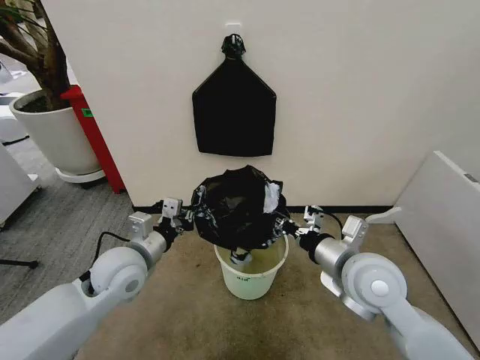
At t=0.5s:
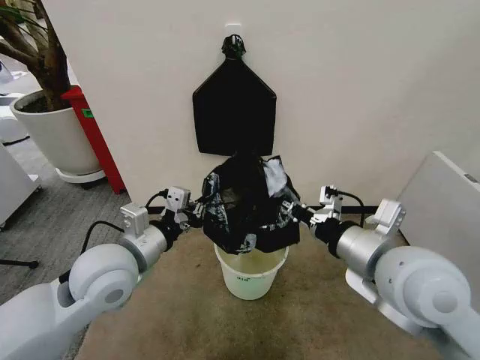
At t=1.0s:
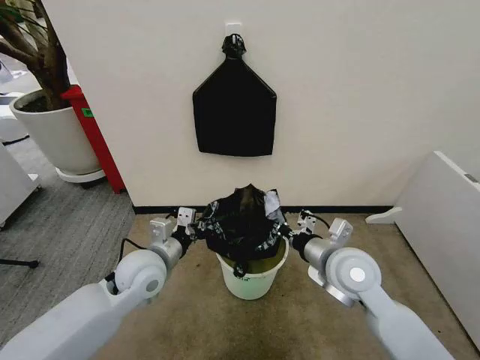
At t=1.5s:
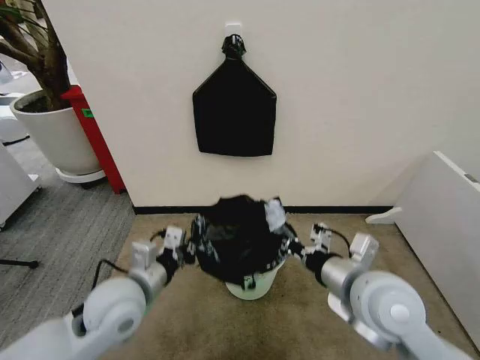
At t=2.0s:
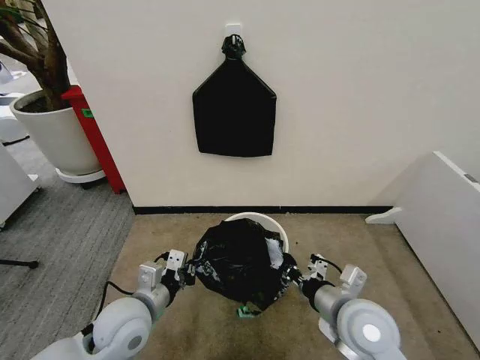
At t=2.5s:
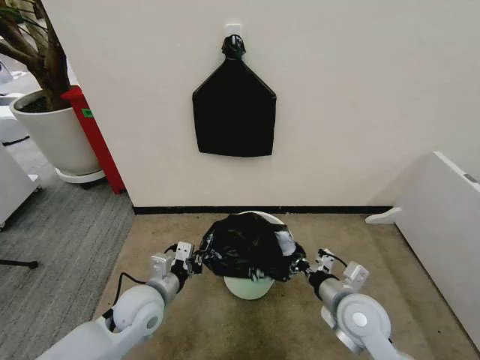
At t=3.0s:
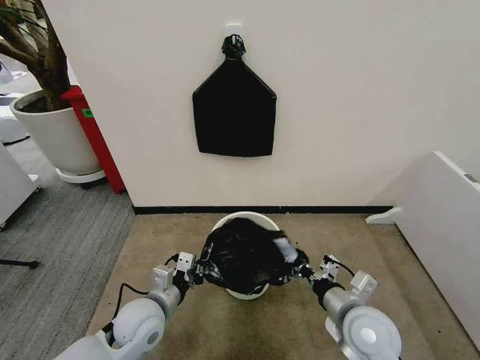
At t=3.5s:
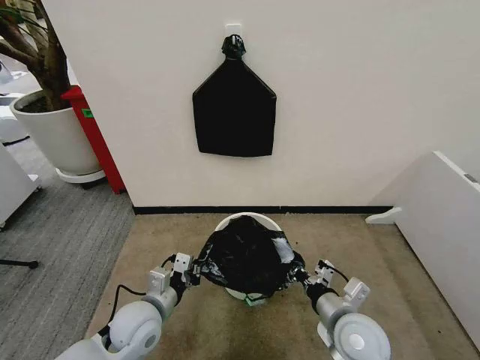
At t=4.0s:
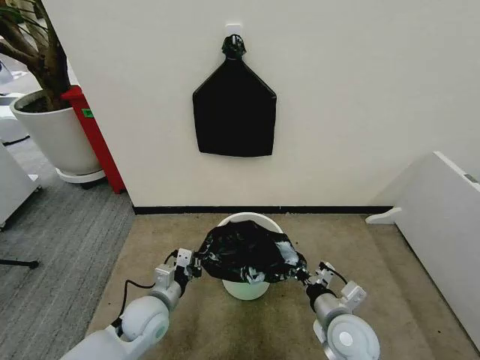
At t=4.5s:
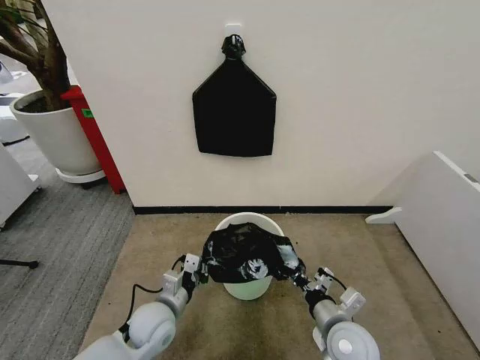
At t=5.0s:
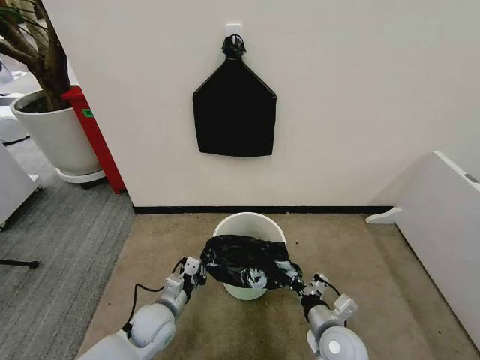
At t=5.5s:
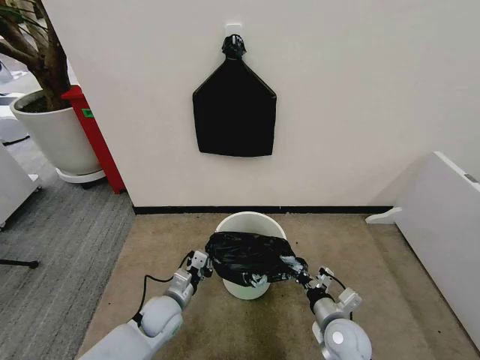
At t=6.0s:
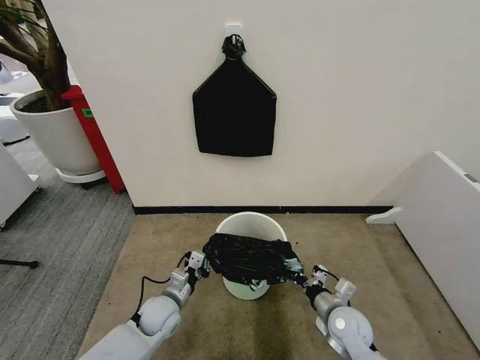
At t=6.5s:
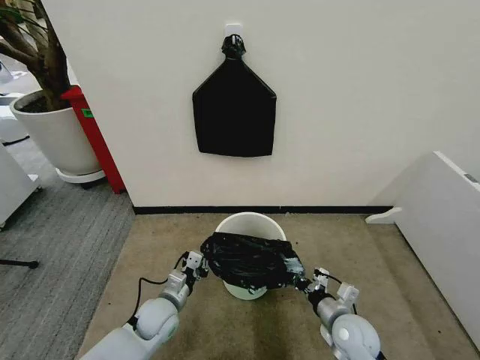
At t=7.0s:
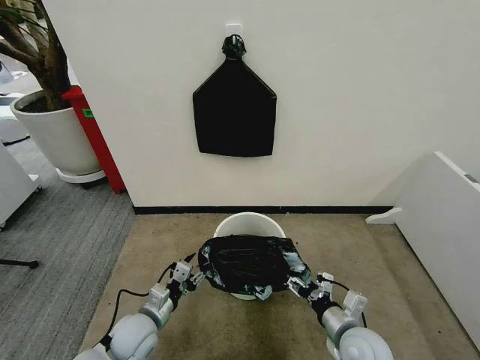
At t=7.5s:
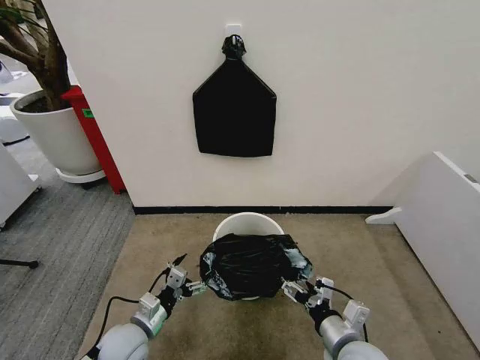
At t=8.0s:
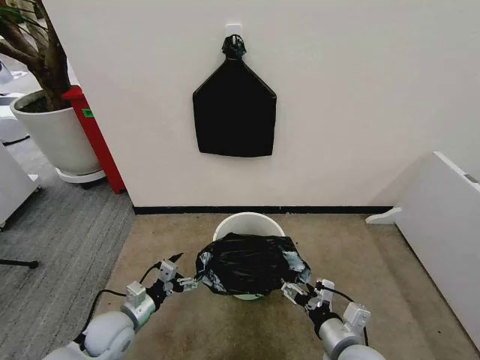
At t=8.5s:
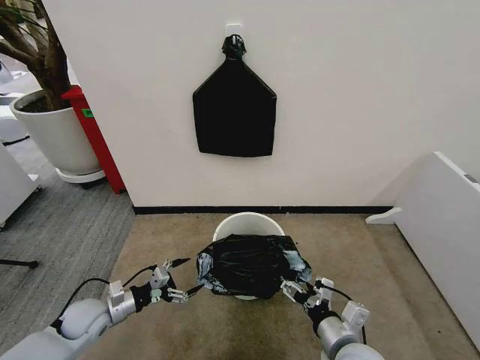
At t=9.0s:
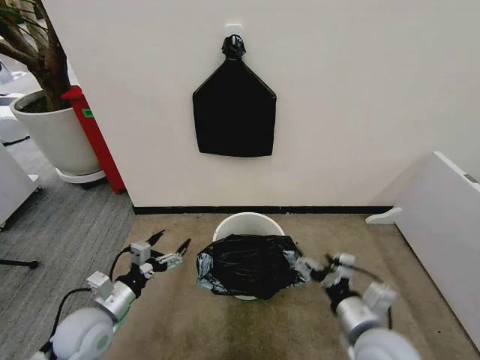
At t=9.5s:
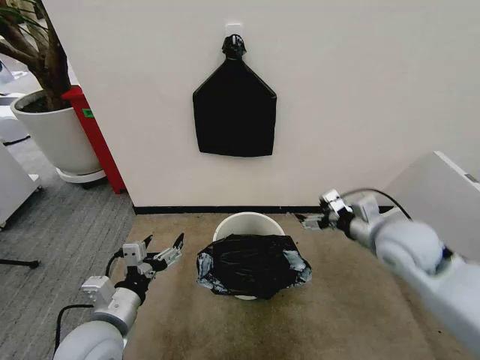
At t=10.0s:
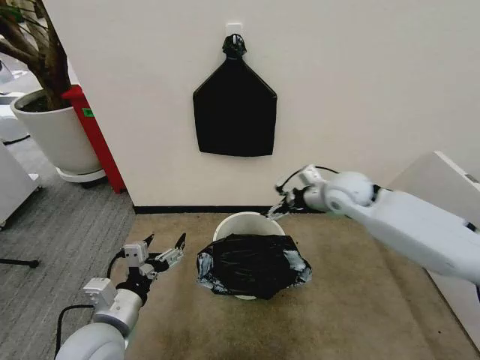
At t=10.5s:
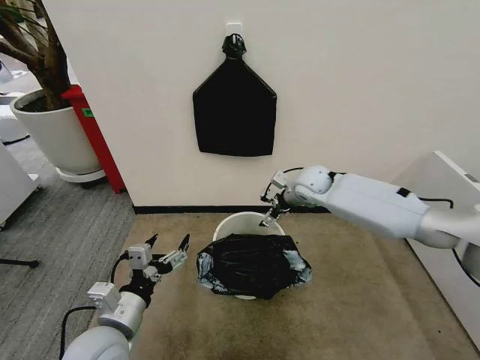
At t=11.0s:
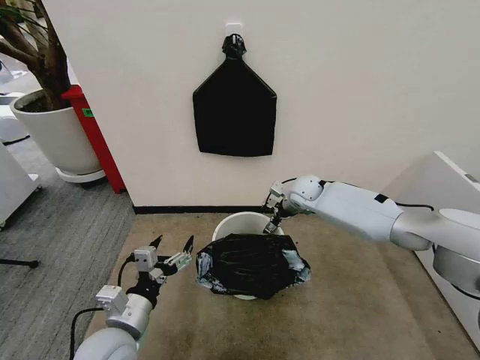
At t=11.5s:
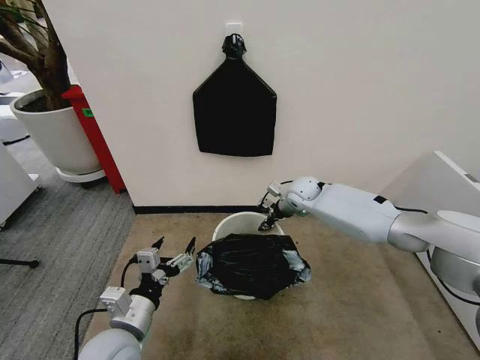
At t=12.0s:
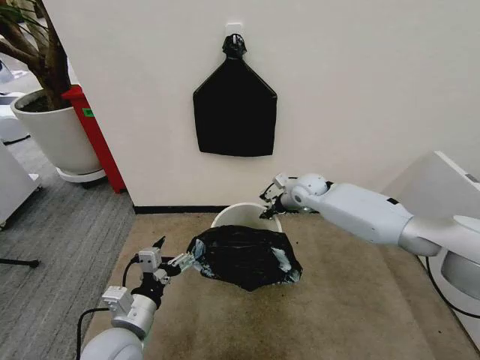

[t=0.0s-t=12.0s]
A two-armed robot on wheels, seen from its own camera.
Task of the whole recording: Place the garbage bag over the trash bin.
t=0.0s to t=2.0s: The right gripper goes up and down, some 15 cm each way, reversing 3 times, while the left gripper shifts approximately 10 cm backward and downward.
t=2.0s to t=4.0s: Both grippers travel together downward, approximately 10 cm.
t=4.0s to t=6.0s: The grippers both shift downward by some 5 cm.
t=6.0s to t=8.0s: The left gripper heads to the left, covering approximately 10 cm, and opens up. Meanwhile the right gripper moves backward and upward, about 15 cm, and opens its fingers.
t=8.0s to t=10.0s: The right gripper travels forward and upward by about 35 cm. The left gripper moves upward and backward, about 15 cm.
t=10.0s to t=12.0s: The right gripper travels forward and downward by approximately 10 cm, and closes.

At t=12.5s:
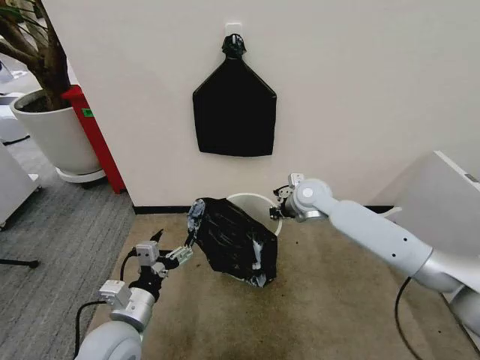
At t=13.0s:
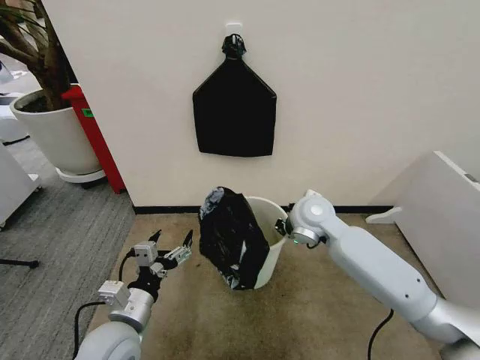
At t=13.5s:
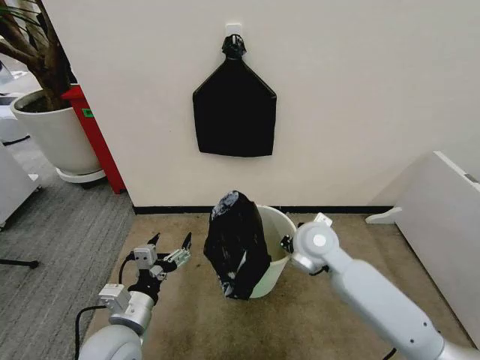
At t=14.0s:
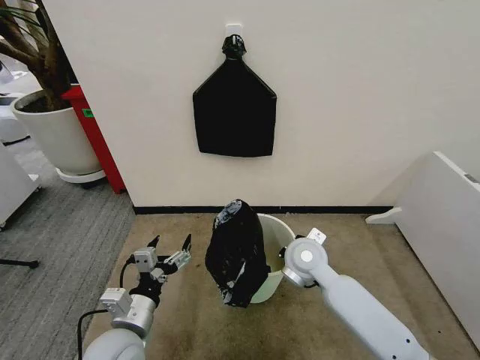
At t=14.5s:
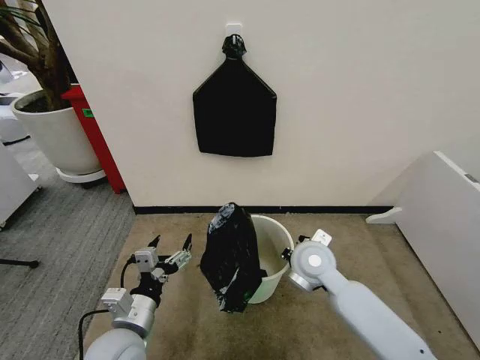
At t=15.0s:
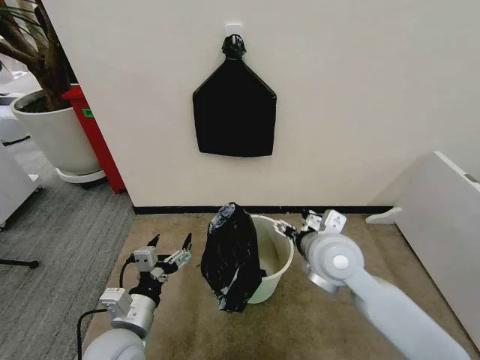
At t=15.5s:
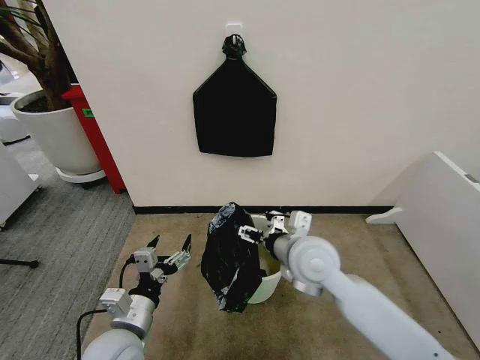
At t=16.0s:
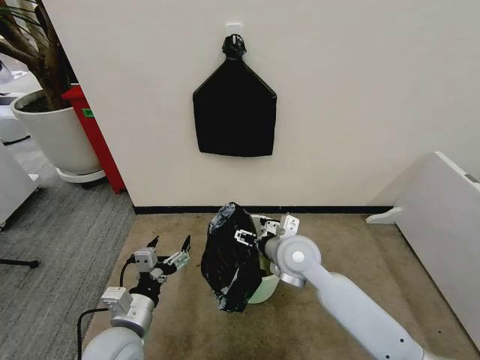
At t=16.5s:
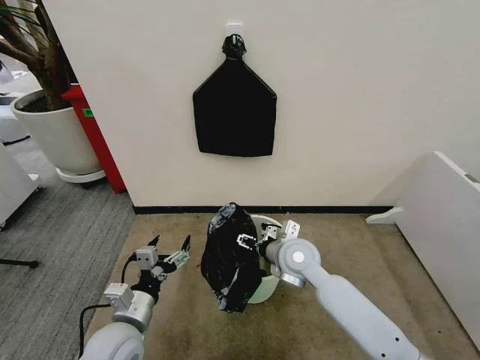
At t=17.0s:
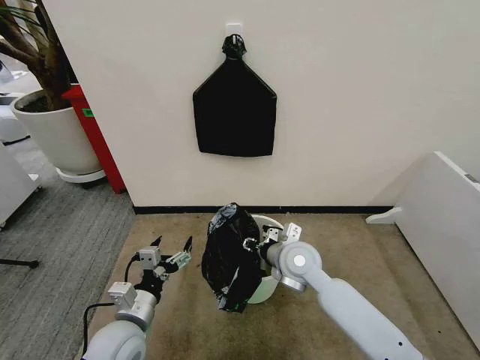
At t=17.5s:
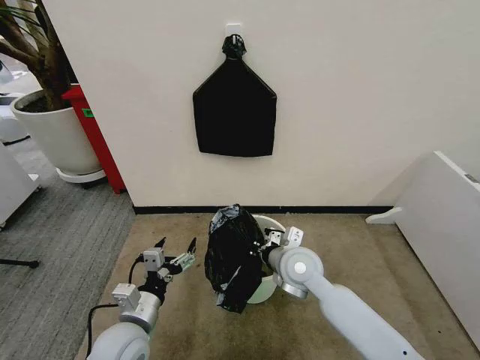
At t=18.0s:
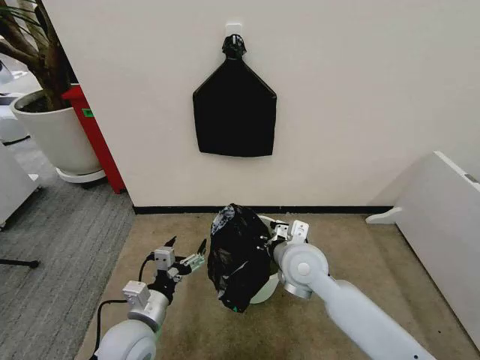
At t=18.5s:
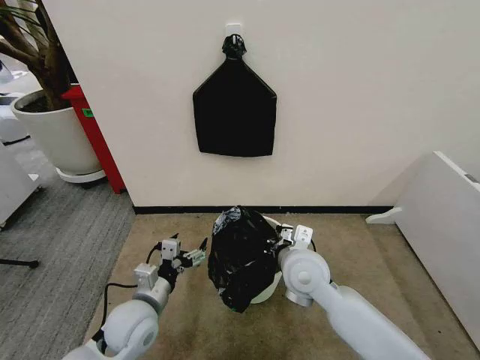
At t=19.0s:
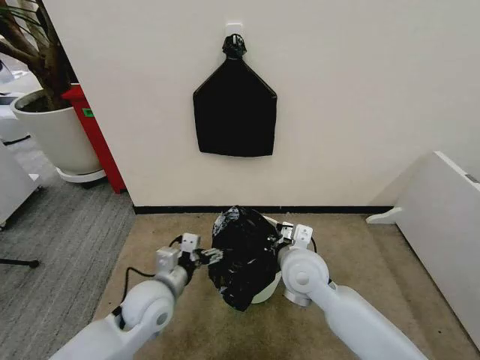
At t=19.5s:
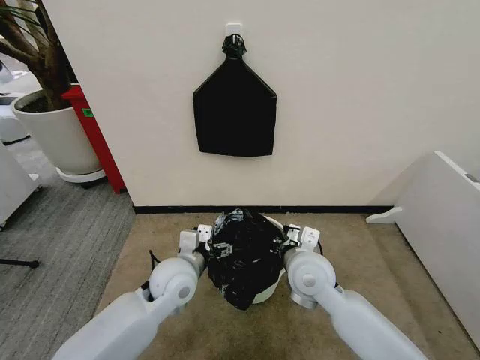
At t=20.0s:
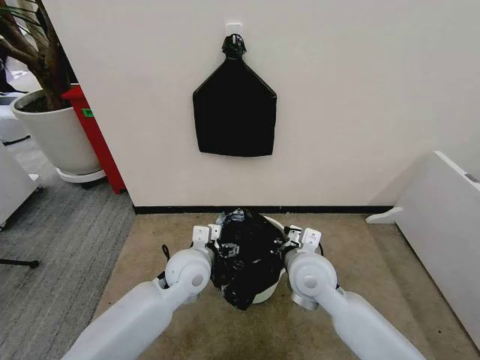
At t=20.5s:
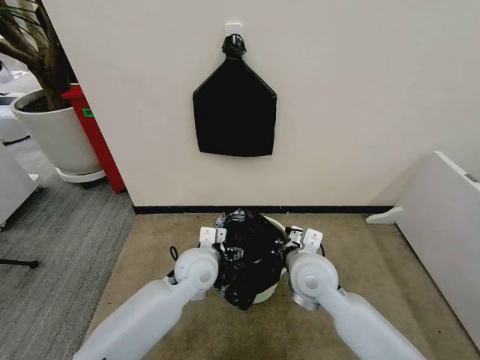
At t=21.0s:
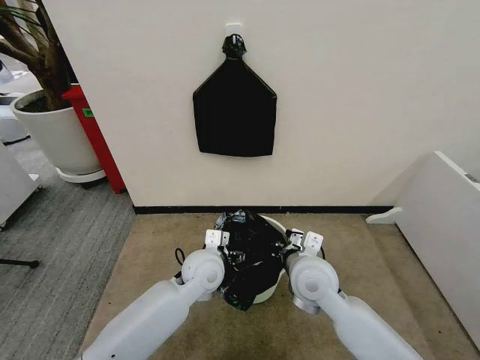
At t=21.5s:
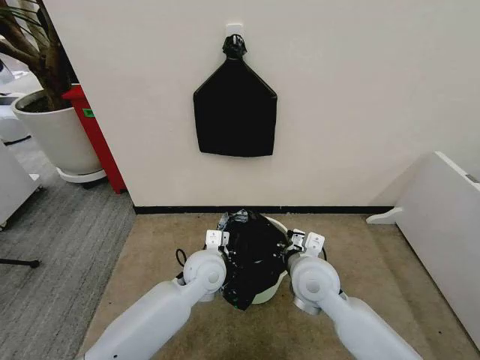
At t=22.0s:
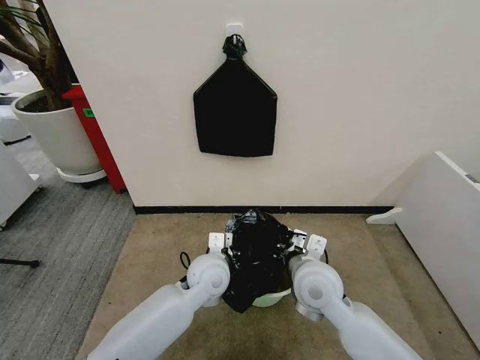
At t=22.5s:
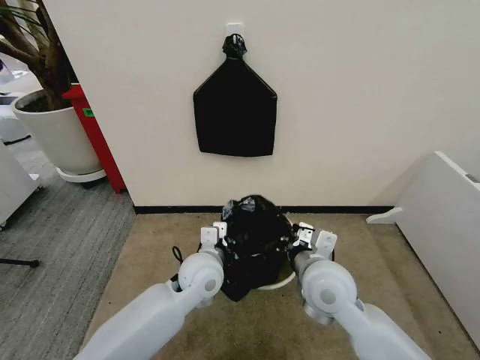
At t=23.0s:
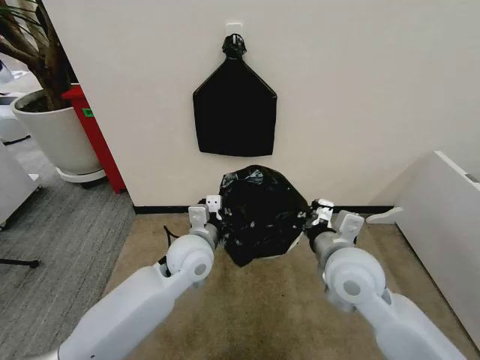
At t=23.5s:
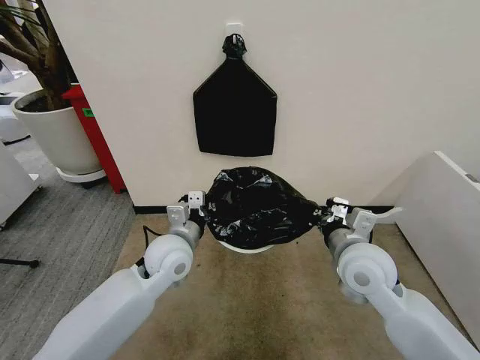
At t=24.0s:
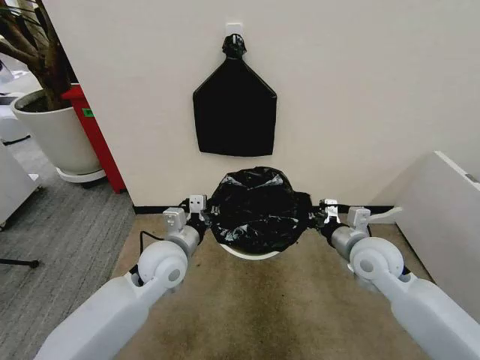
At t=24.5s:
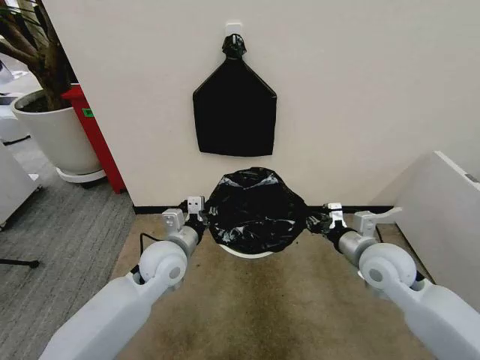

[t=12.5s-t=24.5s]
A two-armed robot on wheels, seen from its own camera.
Task of the whole recording: Place the garbage bag over the trash bin.
t=12.5s to t=14.5s: The right gripper heads backward, covering about 15 cm, and opens.
t=14.5s to t=16.5s: The right gripper moves approximately 5 cm upward and comes back, and opens up.
t=16.5s to t=18.5s: The right gripper moves about 5 cm, and closes up.
t=18.5s to t=20.5s: The left gripper shifts about 15 cm to the right and forward.
t=20.5s to t=22.5s: The left gripper closes its fingers.
t=22.5s to t=24.5s: The right gripper goes roughly 15 cm to the right, while the left gripper heads to the left, covering some 10 cm.

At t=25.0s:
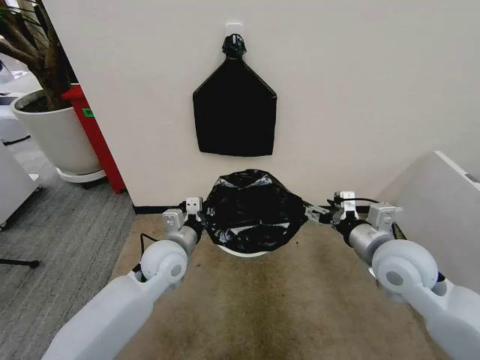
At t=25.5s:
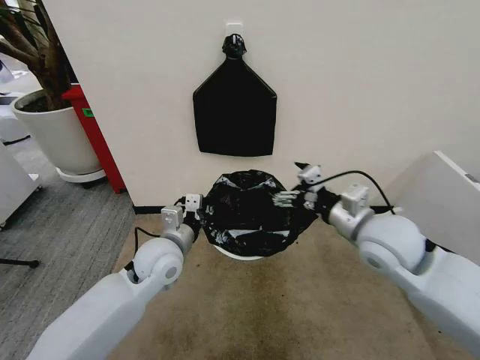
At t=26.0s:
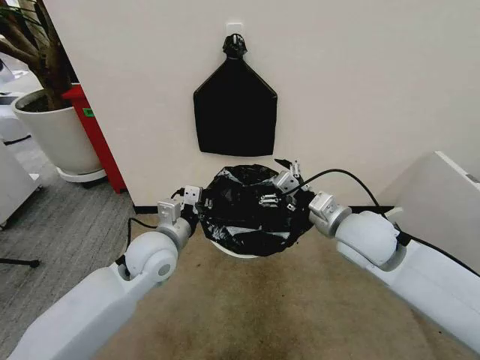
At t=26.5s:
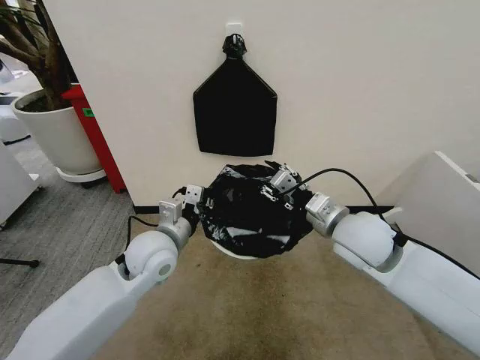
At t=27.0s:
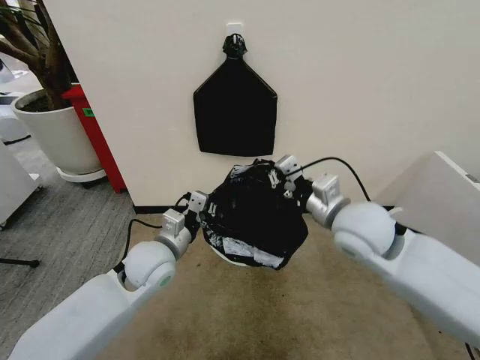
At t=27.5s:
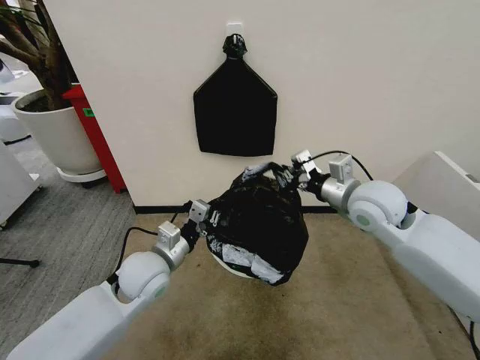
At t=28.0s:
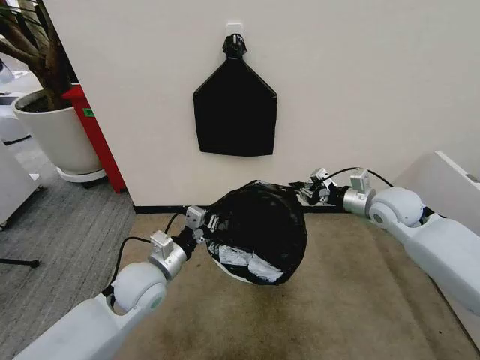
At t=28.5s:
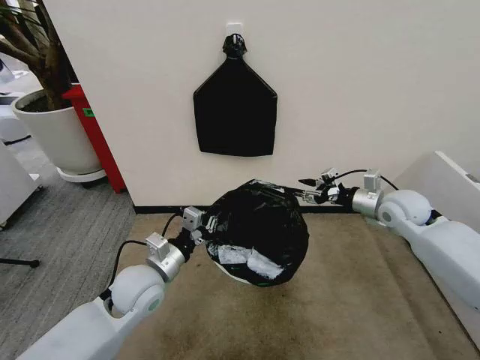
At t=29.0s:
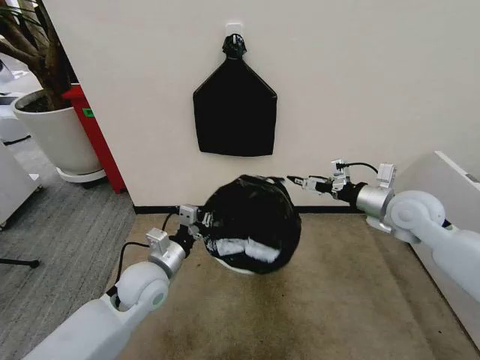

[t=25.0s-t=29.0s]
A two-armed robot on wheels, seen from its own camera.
Task of the whole recording: Place the garbage bag over the trash bin.
t=25.0s to t=27.0s: The right gripper shifts some 10 cm to the left, and closes its fingers.
t=27.0s to t=29.0s: The right gripper shifts some 15 cm to the right and forward, and opens. Meanwhile the left gripper changes place by about 5 cm.
